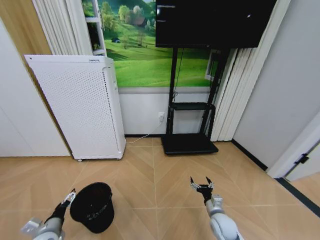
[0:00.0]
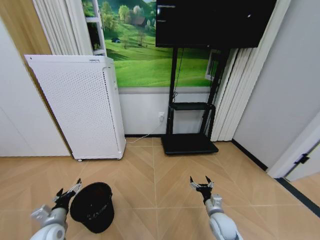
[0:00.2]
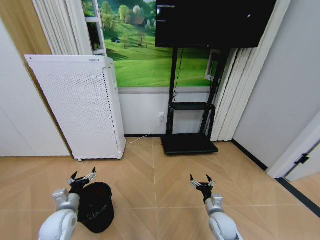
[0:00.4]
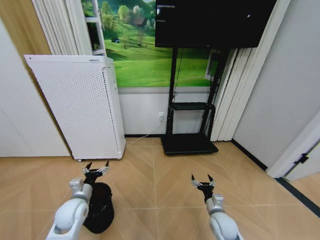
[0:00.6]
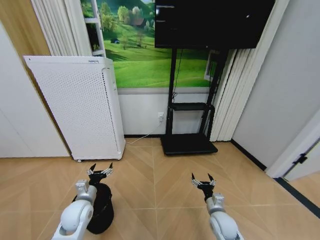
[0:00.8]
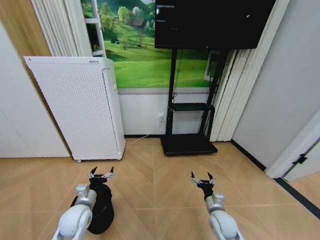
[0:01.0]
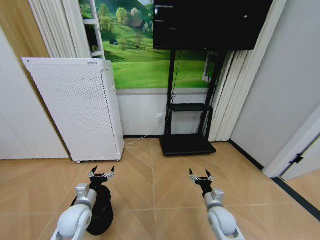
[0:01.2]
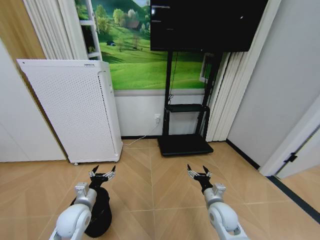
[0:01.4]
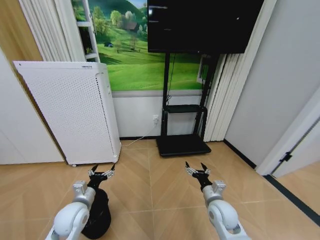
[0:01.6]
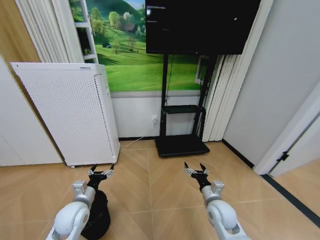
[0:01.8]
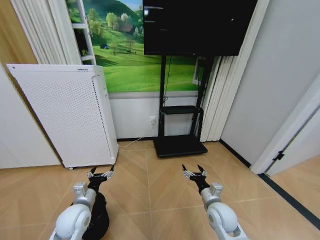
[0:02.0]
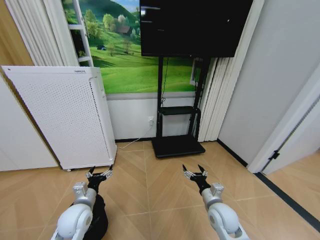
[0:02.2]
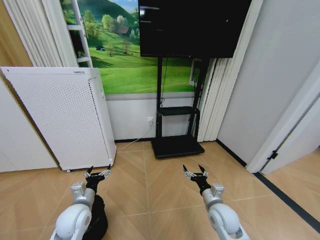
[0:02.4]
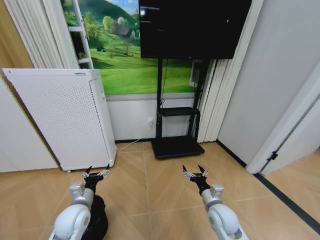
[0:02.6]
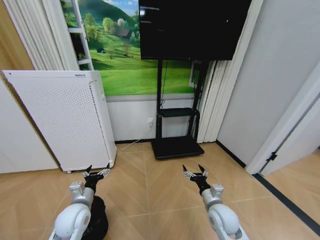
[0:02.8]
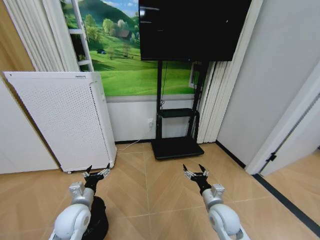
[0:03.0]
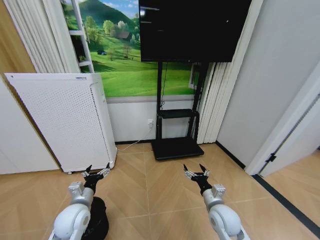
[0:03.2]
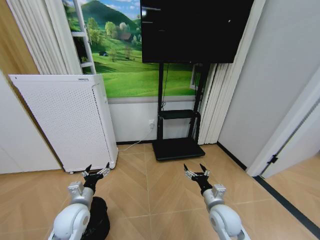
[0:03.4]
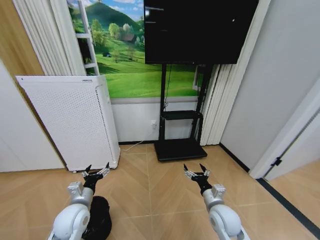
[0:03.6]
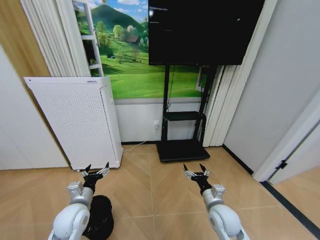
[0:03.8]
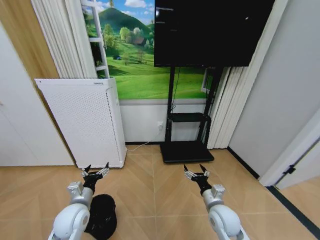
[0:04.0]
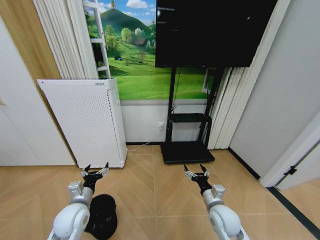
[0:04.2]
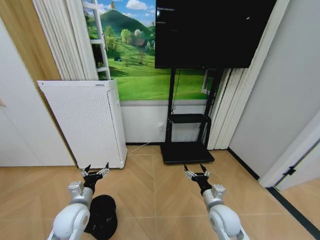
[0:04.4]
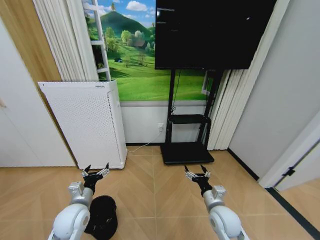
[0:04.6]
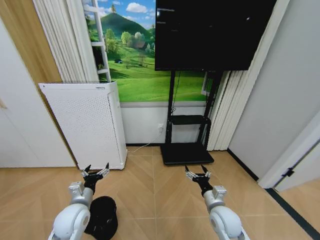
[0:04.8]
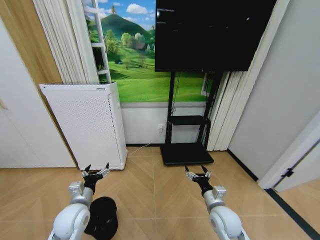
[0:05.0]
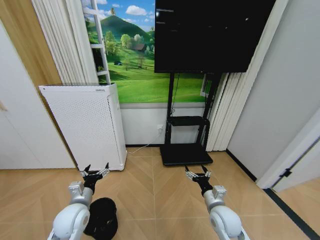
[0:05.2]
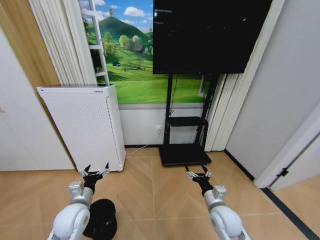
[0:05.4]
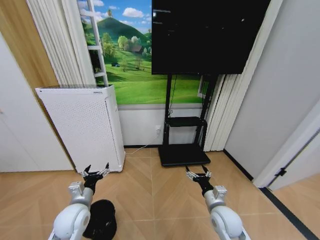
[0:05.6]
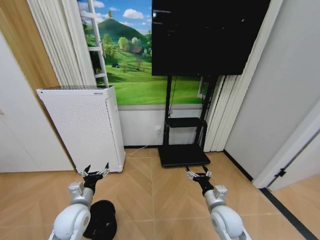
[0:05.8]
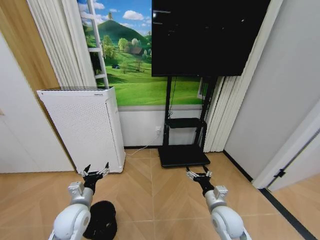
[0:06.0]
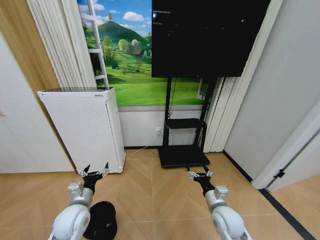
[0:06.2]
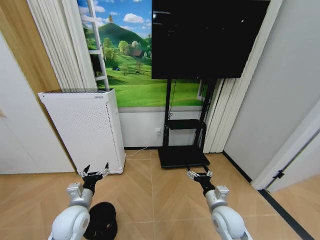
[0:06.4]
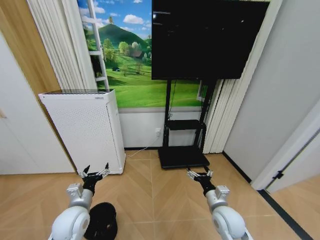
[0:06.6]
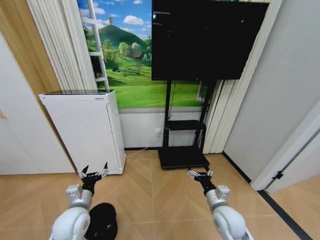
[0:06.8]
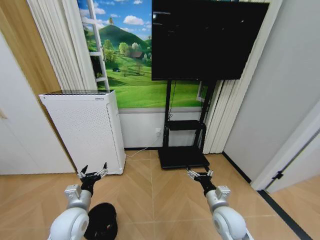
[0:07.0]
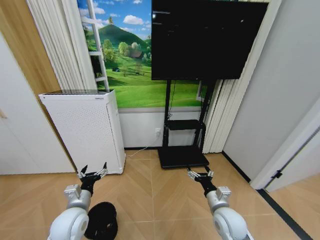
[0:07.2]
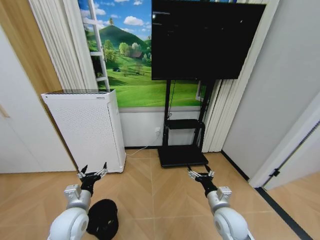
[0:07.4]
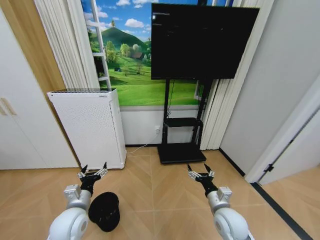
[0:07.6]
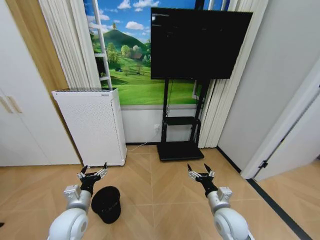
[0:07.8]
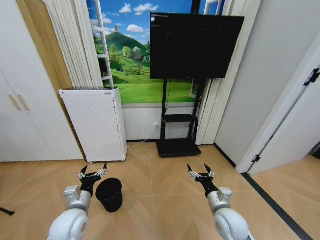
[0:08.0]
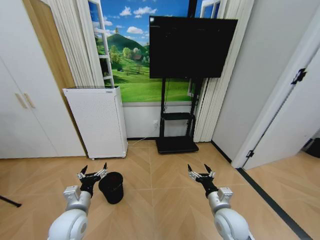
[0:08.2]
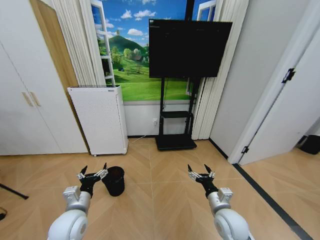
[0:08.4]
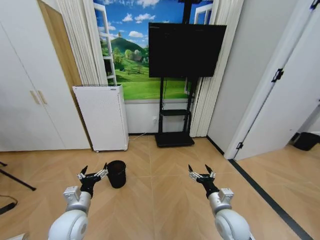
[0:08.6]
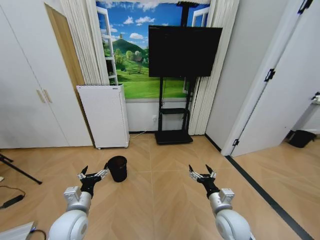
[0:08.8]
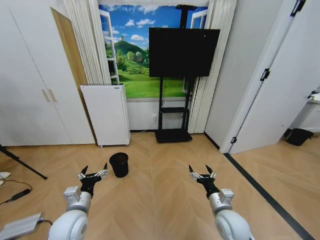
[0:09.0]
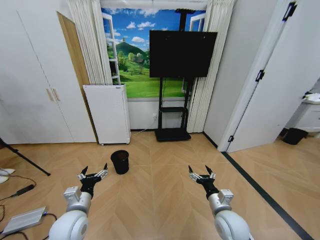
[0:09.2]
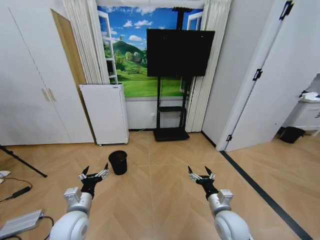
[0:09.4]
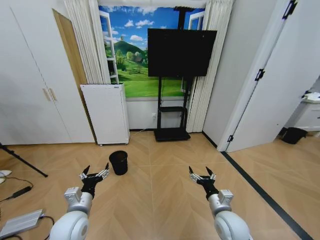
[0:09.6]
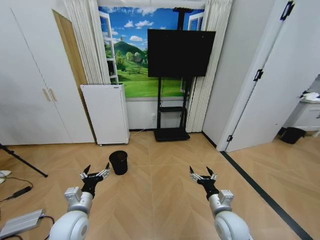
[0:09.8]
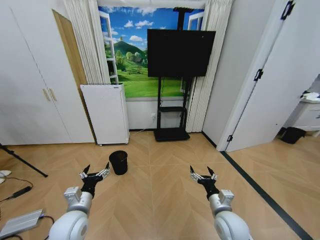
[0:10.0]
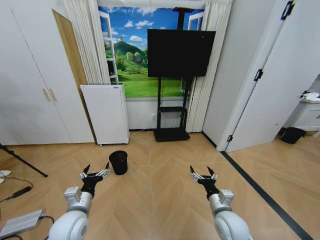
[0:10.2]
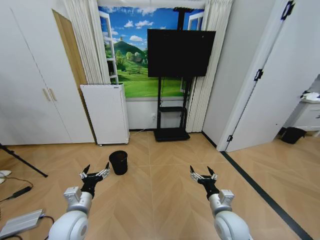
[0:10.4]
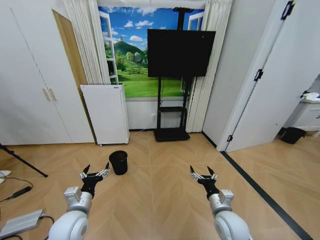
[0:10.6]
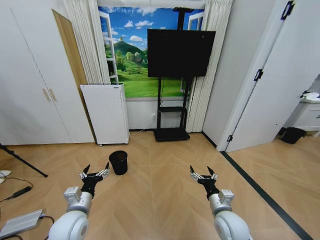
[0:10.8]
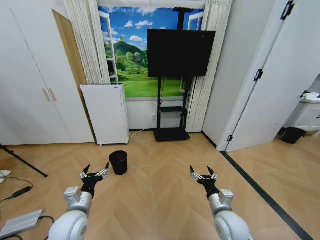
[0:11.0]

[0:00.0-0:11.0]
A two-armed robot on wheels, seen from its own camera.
Task of the whole recording: Pick up the trash bin and place the garbage on the floor into it.
0:00.0 to 0:01.6: The right gripper goes about 10 cm upward. The left gripper shifts some 15 cm to the right, upward and forward.
0:09.4 to 0:11.0: Both grippers stay about where they are.

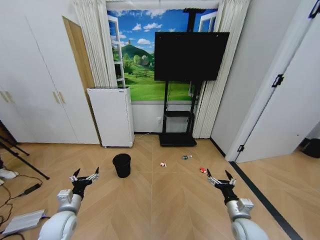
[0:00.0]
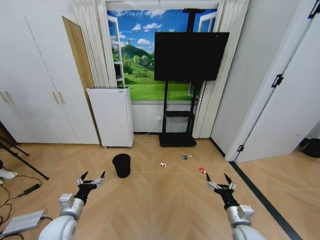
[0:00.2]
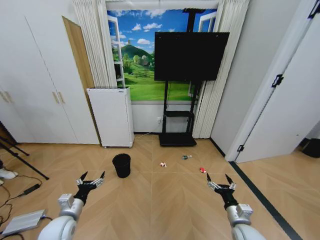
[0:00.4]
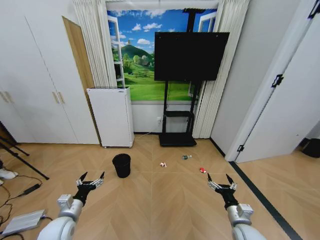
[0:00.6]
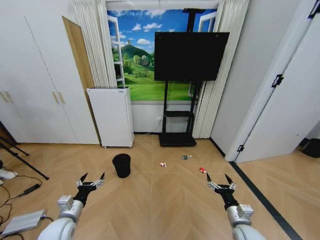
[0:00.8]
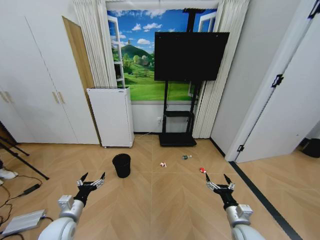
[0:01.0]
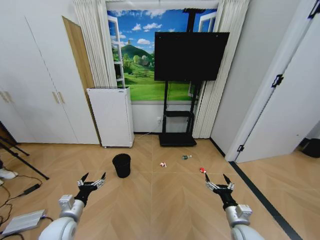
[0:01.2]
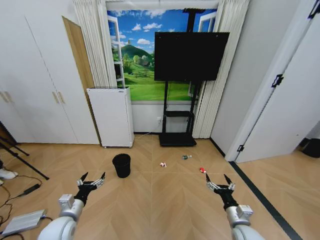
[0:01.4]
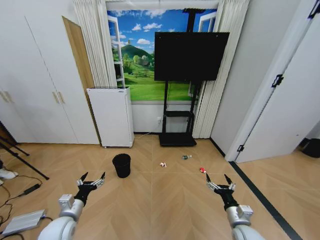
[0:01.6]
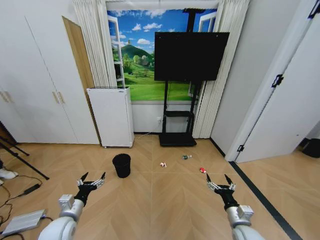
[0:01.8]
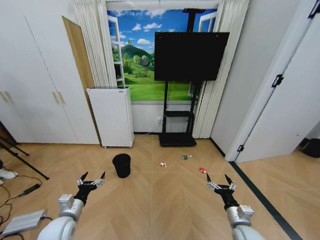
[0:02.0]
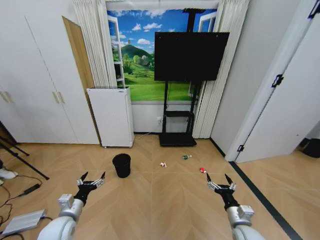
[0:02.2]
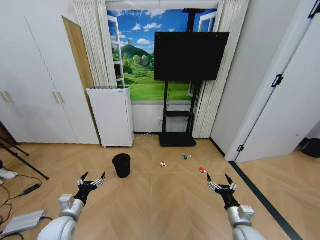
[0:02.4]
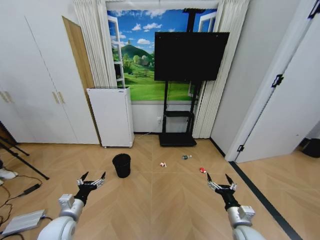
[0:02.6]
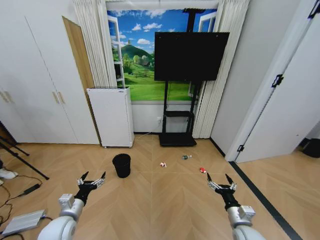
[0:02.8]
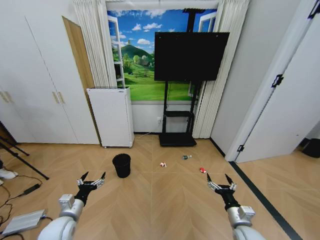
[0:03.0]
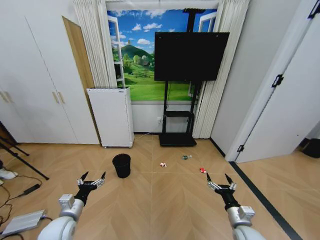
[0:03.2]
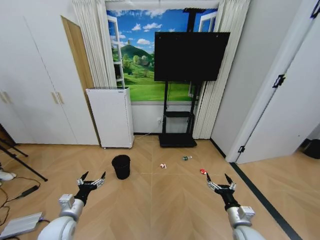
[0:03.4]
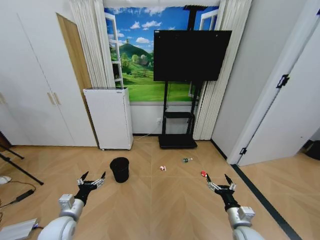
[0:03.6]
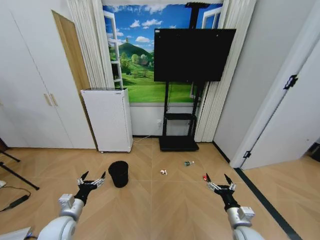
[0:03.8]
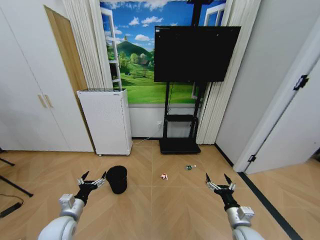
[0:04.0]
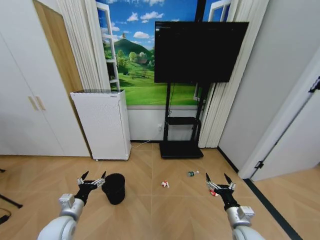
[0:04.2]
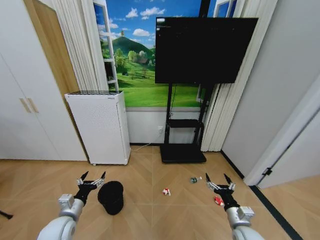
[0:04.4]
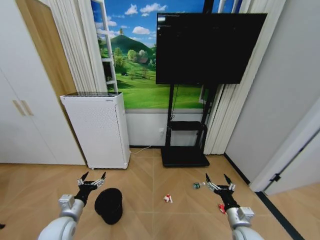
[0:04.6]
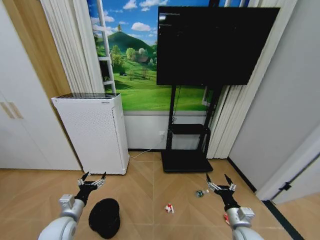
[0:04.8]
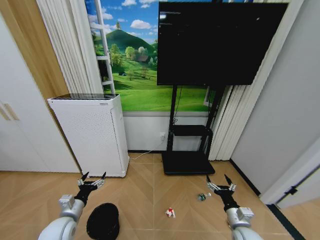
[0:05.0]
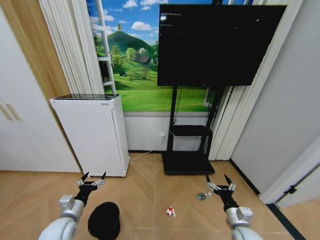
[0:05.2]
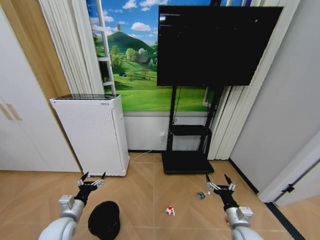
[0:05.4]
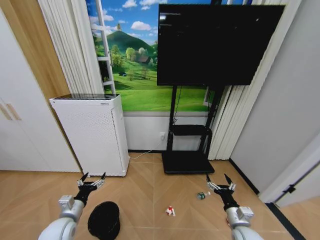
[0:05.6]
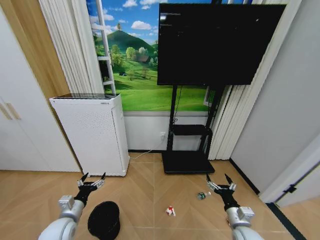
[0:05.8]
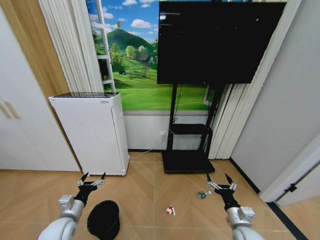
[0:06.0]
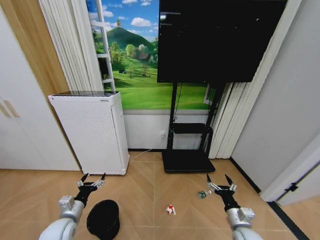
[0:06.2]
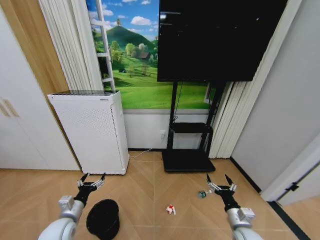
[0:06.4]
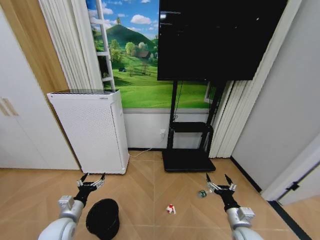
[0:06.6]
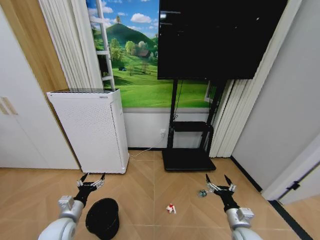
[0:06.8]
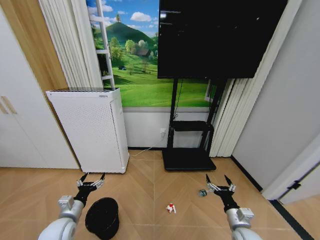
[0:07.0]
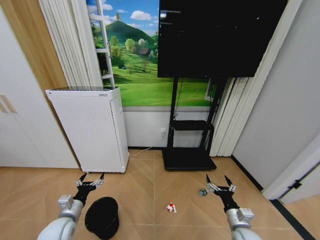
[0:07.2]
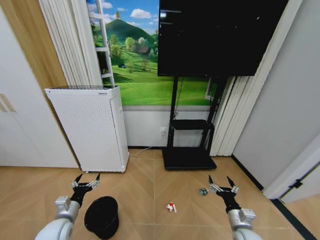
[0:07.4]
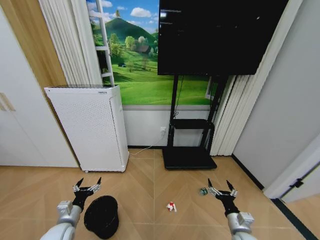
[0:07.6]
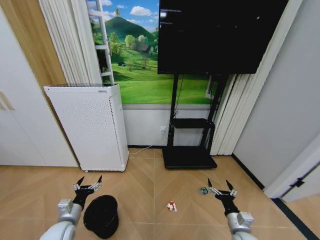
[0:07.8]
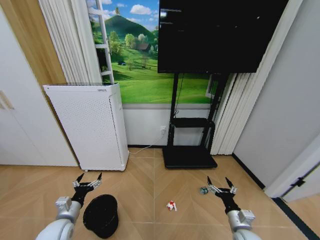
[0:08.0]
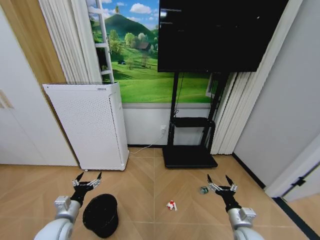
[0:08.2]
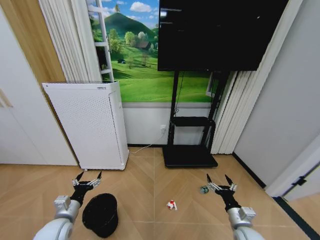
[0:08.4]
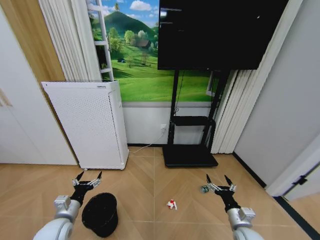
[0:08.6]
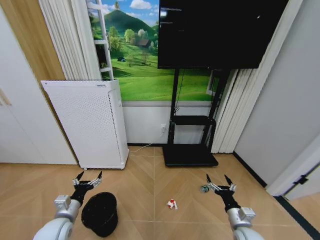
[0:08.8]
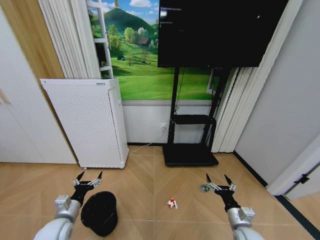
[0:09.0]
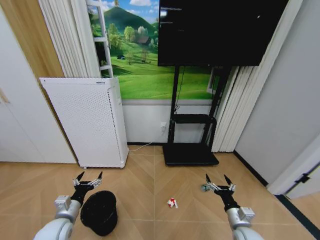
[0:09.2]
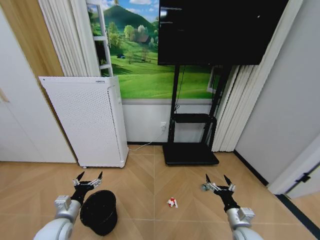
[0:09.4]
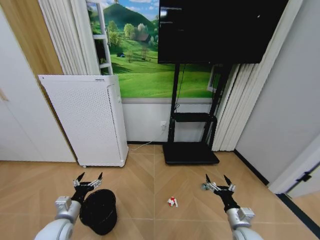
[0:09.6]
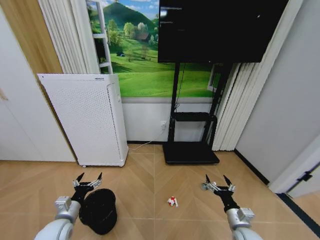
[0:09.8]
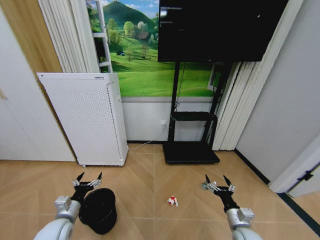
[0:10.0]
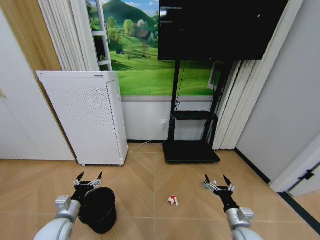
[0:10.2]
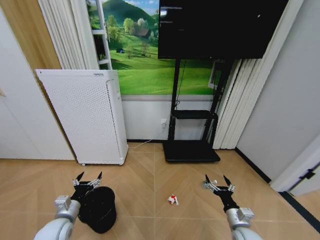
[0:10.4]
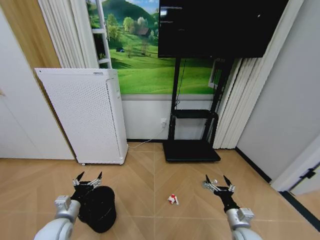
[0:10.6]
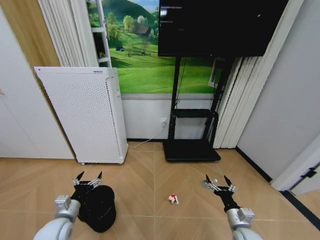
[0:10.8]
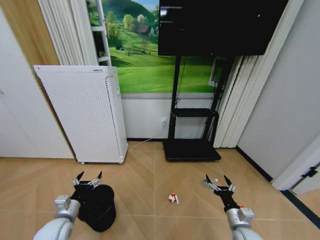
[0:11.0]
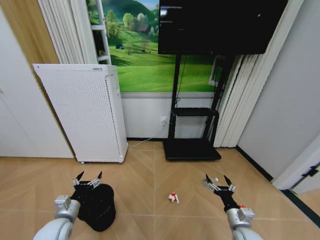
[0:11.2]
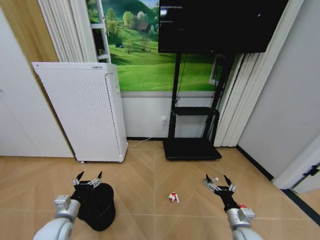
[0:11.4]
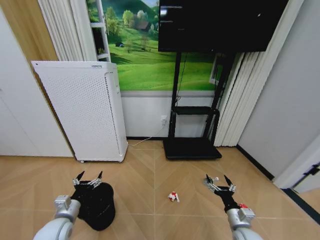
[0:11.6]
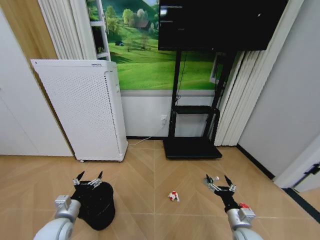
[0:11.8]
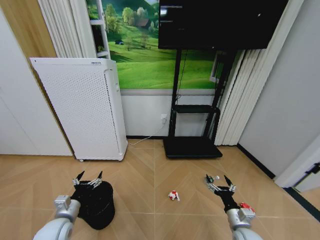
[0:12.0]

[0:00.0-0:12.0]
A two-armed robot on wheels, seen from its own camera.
Task of the whole recording: Pick up the trash bin and place the garbage on the floor into it.
0:01.6 to 0:03.0: Neither gripper changes place.
0:06.0 to 0:09.0: The grippers make only small movements.
0:09.0 to 0:12.0: Neither gripper changes place.
